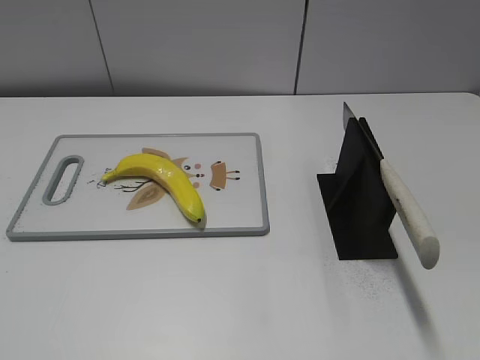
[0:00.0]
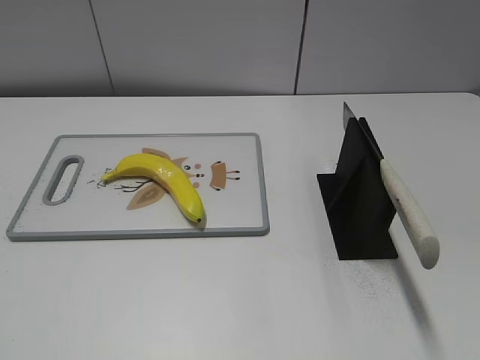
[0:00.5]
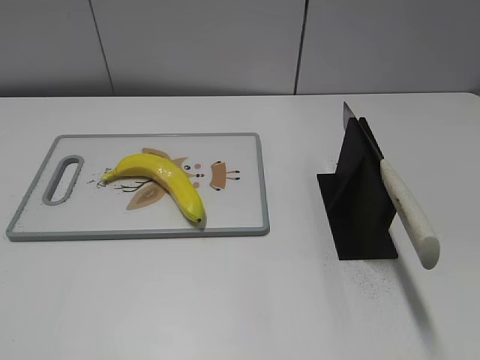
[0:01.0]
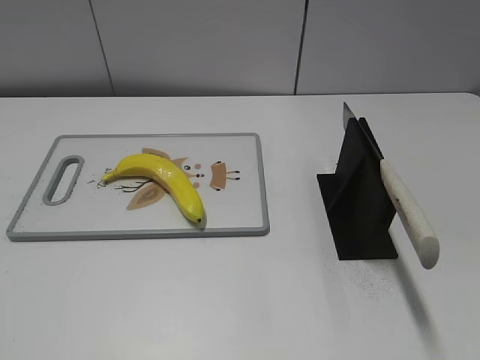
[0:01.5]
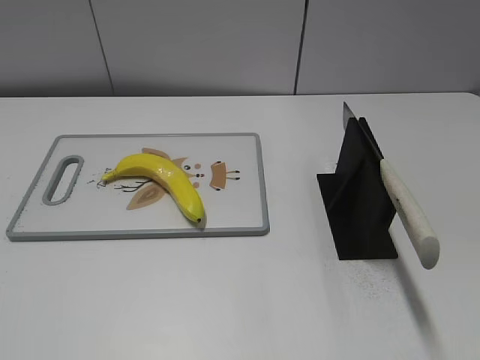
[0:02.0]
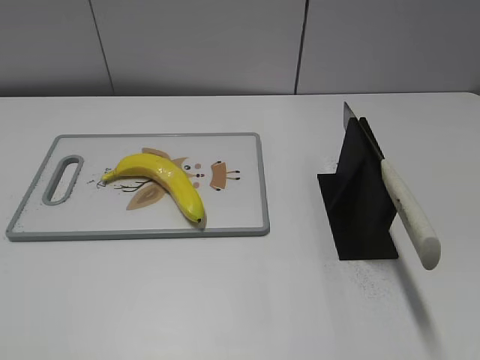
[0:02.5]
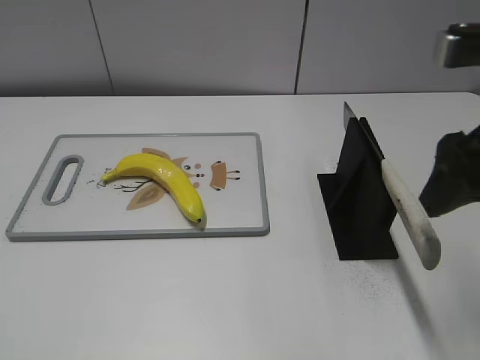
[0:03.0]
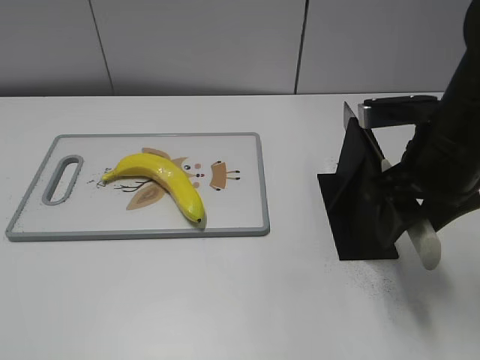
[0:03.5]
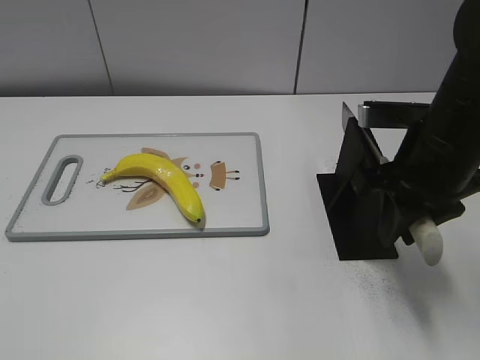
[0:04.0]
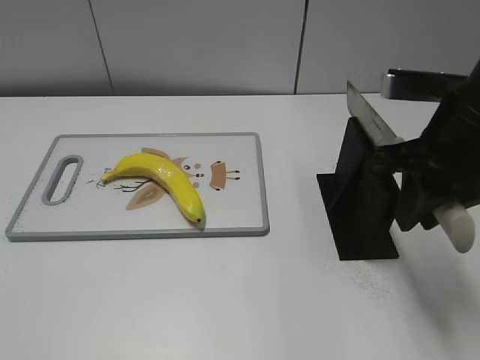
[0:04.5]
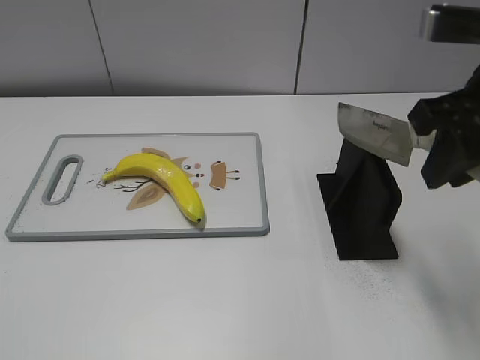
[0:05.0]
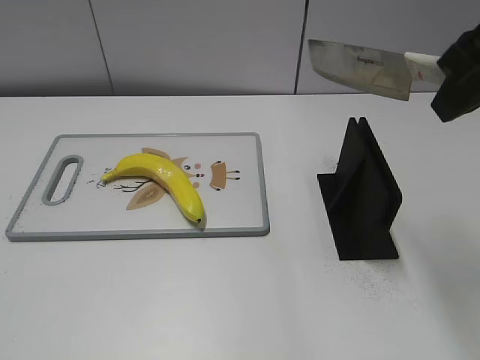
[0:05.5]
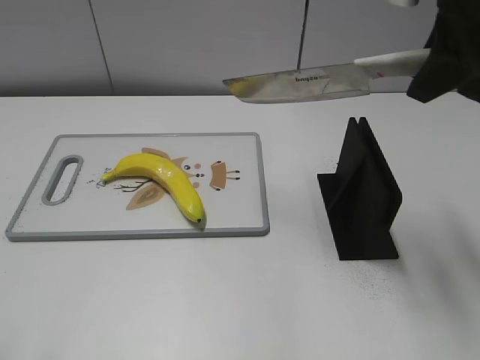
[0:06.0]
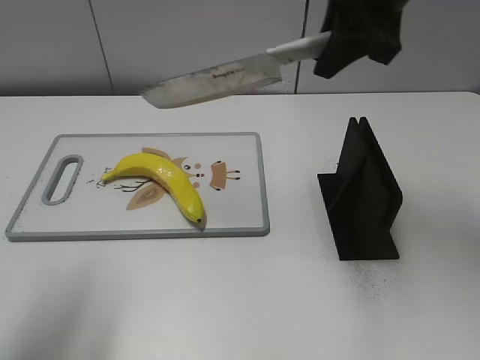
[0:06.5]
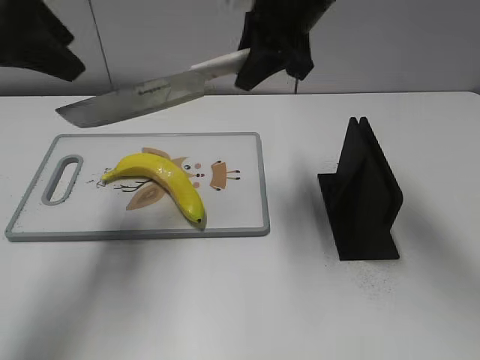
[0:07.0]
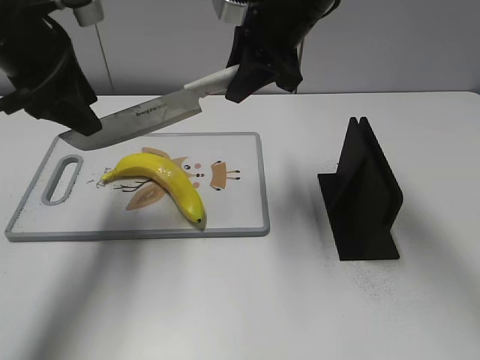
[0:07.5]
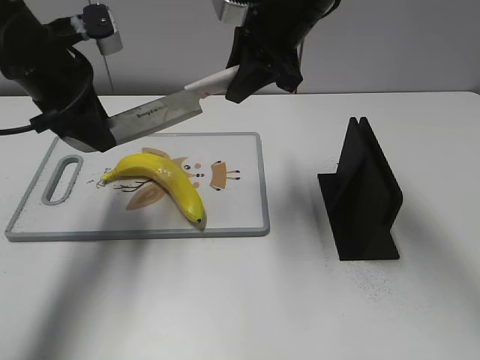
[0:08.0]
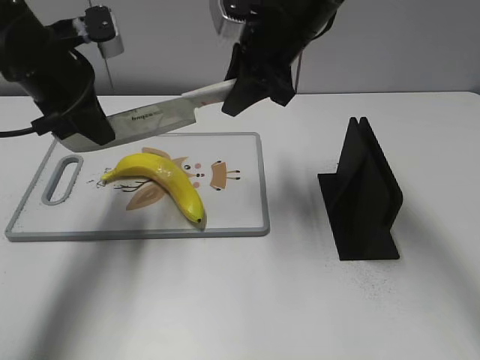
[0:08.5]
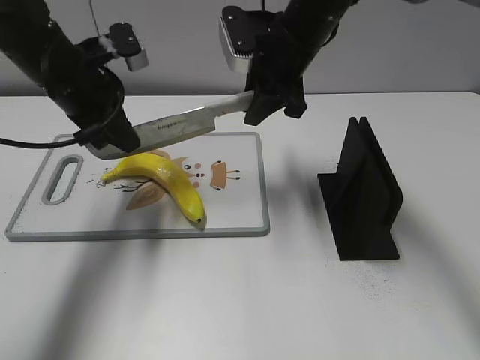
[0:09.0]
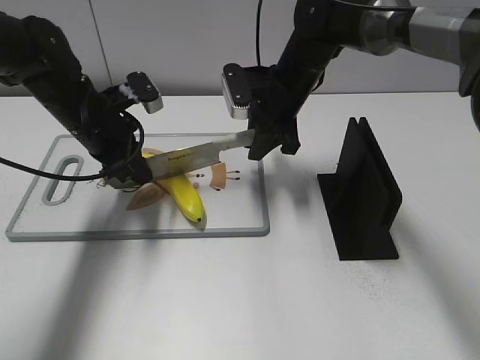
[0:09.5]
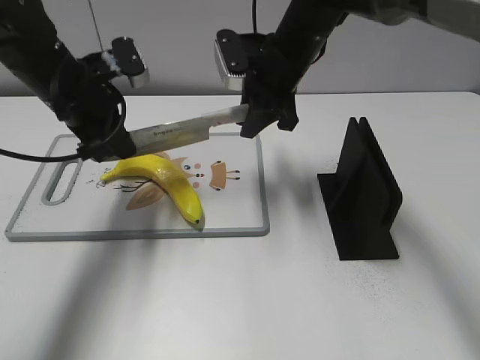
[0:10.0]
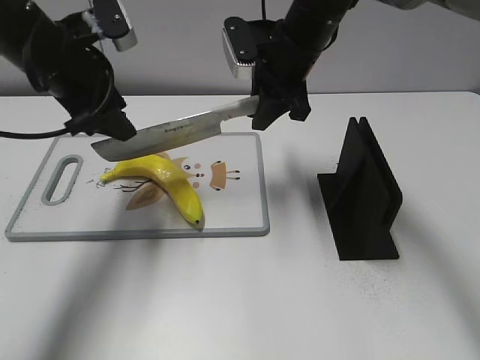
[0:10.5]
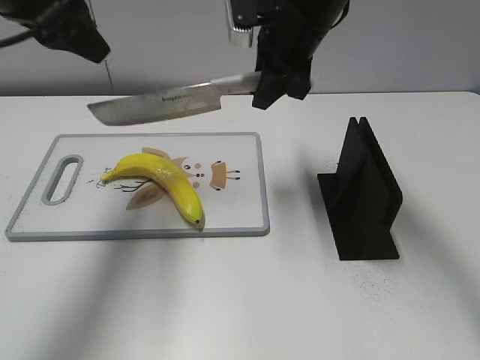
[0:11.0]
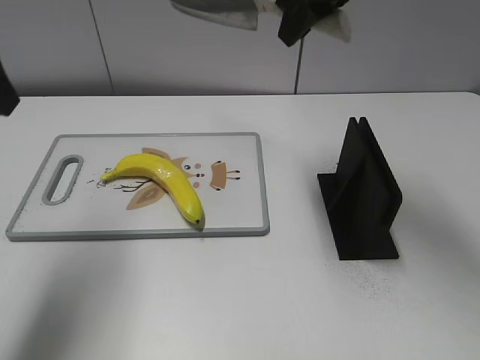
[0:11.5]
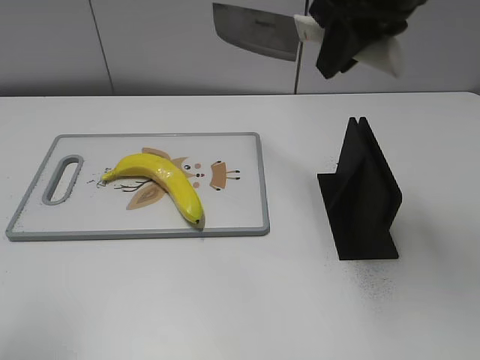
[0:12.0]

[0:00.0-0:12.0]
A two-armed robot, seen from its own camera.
Task of the whole recording: cut plastic banana.
Step, 0:00.0 to 0:04.5: Grab the knife handle with your right hand.
Step, 0:05.0 to 0:10.0: Lift the knife with your right hand.
Step, 0:10.5 to 0:11.5: Cut the banana with your right hand.
0:02.0 to 0:04.0: The right gripper moves forward and to the left, some 30 cm, and closes its fingers.
0:04.0 to 0:06.0: The left gripper heads forward, covering roughly 5 cm. Meanwhile the right gripper is displaced upward by approximately 15 cm.
0:06.0 to 0:08.0: The right gripper moves to the left, forward and downward, some 20 cm. The left gripper shifts approximately 30 cm forward.
0:08.0 to 0:10.0: The right gripper is displaced downward by some 10 cm. The left gripper closes up.
0:10.0 to 0:12.0: The right gripper moves upward, backward and to the right, about 20 cm; the left gripper travels backward and upward by some 25 cm, and opens.

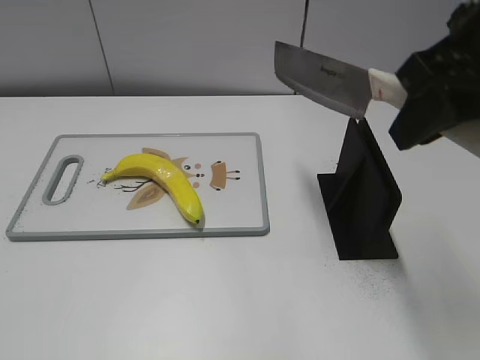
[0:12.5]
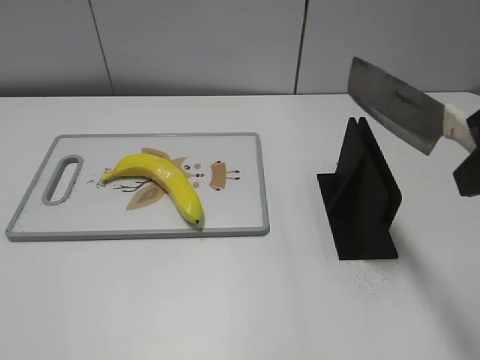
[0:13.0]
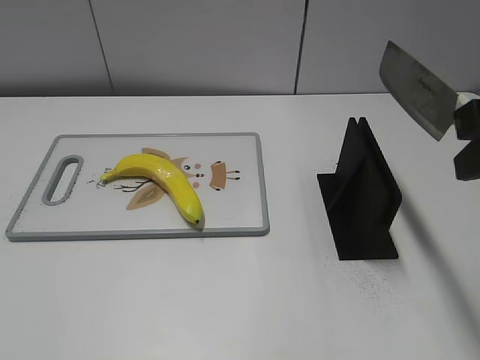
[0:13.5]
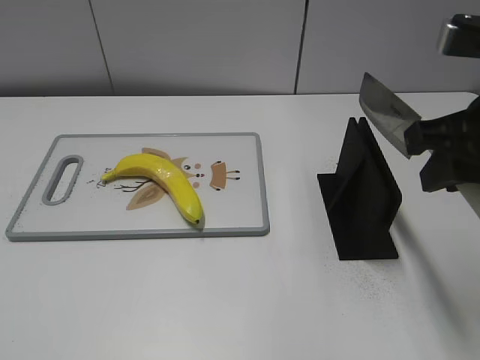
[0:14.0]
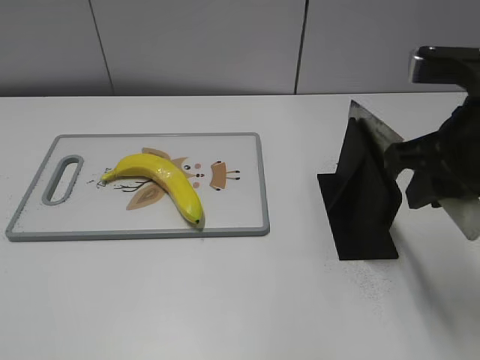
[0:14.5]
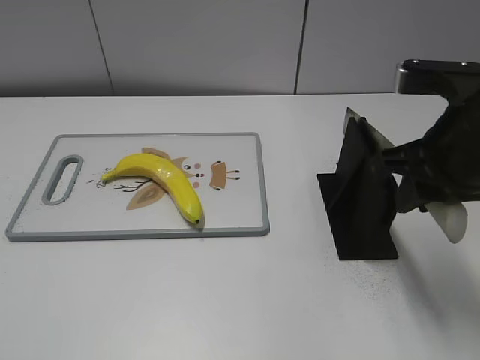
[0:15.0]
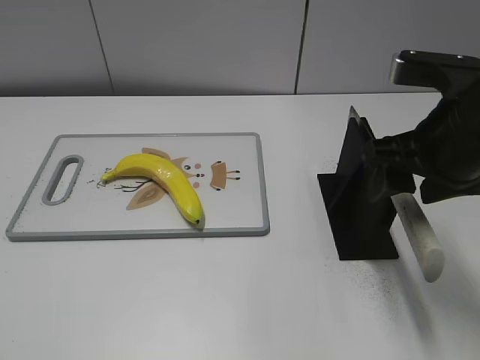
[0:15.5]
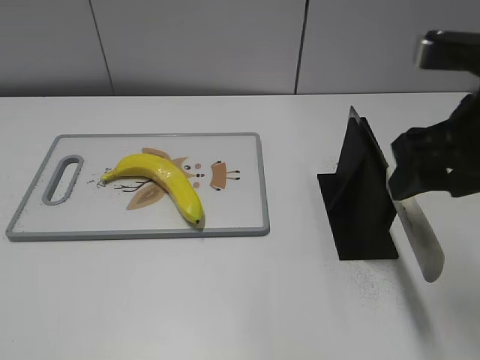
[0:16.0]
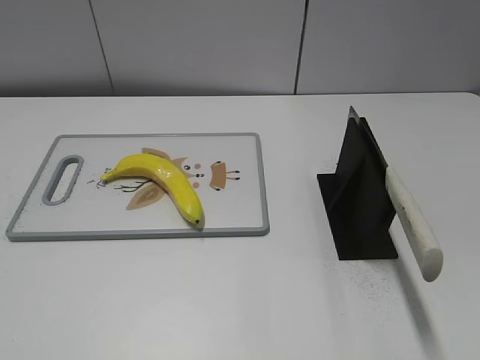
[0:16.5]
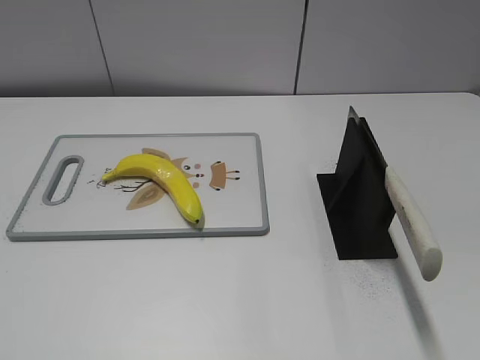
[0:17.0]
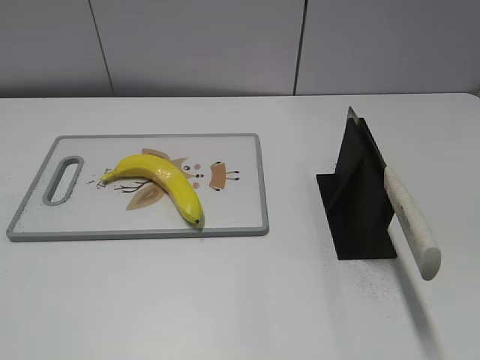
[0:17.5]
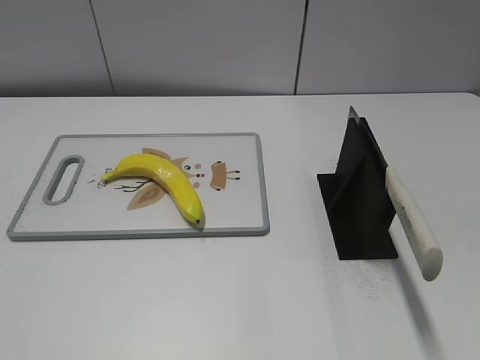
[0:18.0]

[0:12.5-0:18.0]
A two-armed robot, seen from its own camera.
Task of the whole recording: cut plastic banana.
Step, 0:13.0 to 0:18.0: Place the knife on the storage rack with your right hand.
0:12.5 to 0:14.5: The right gripper heads downward, covering some 10 cm.
0:14.5 to 0:16.0: The right gripper opens.
0:16.0 to 0:18.0: The right gripper is displaced backward and to the right by about 25 cm.
